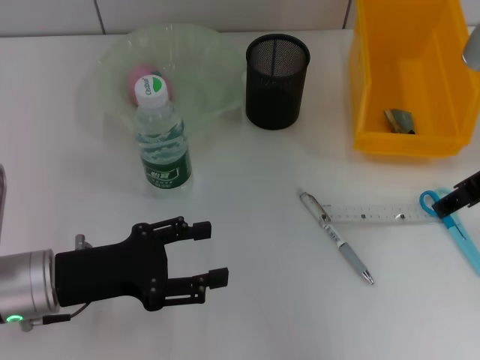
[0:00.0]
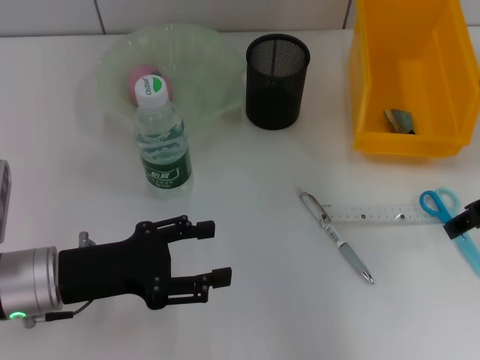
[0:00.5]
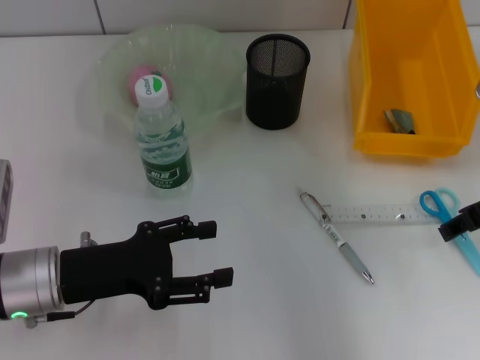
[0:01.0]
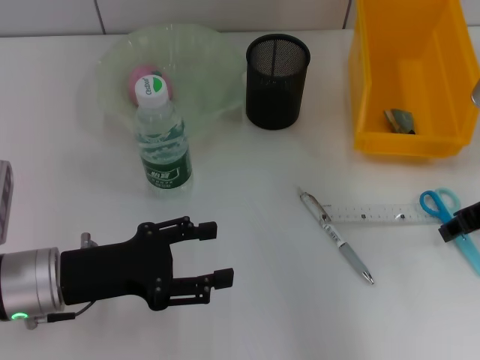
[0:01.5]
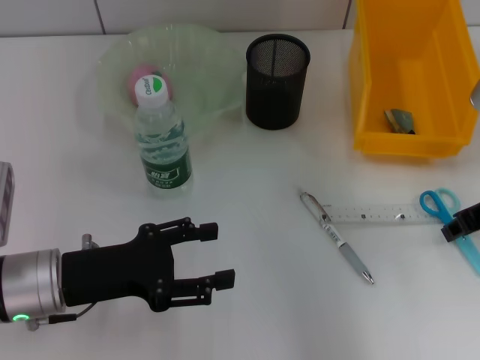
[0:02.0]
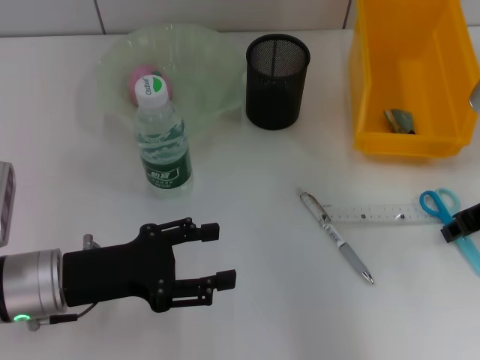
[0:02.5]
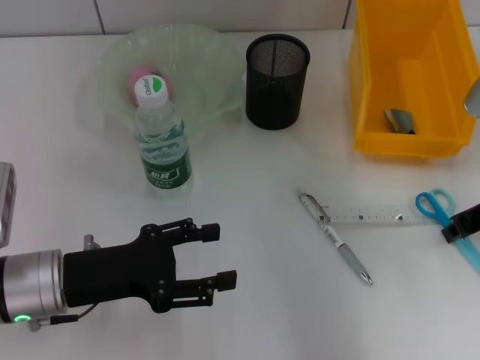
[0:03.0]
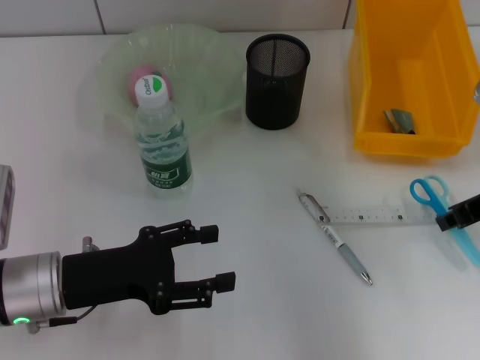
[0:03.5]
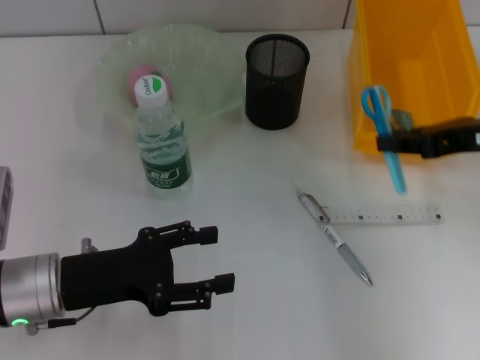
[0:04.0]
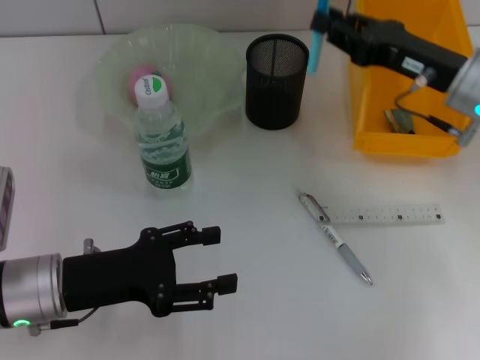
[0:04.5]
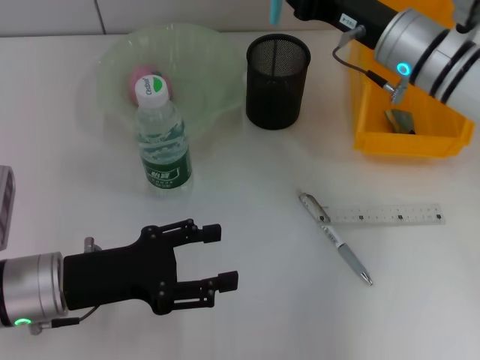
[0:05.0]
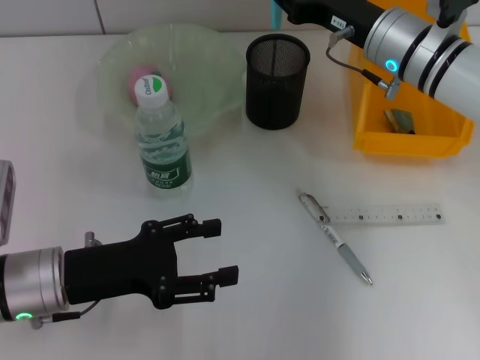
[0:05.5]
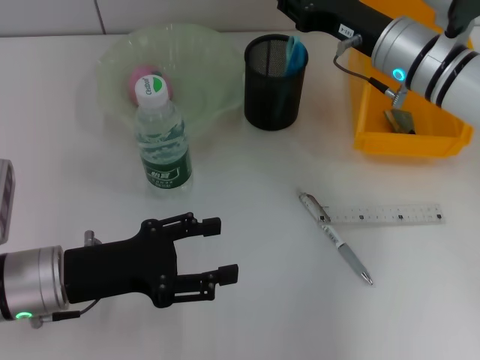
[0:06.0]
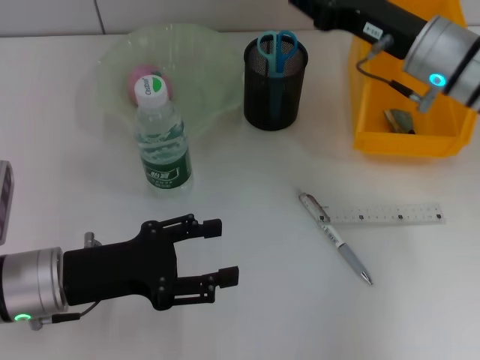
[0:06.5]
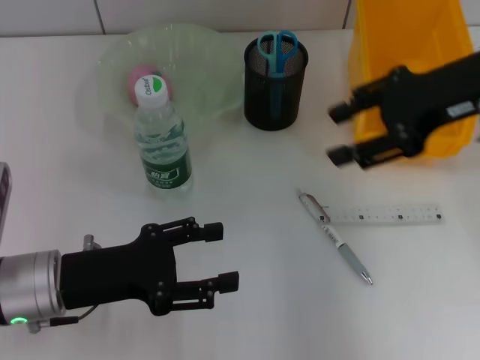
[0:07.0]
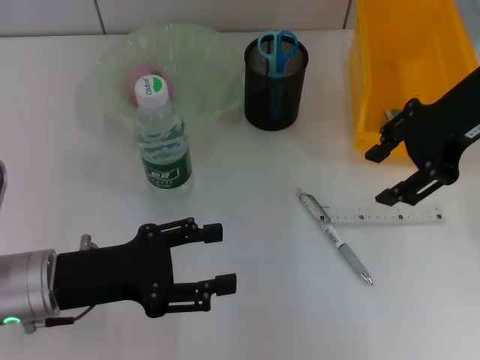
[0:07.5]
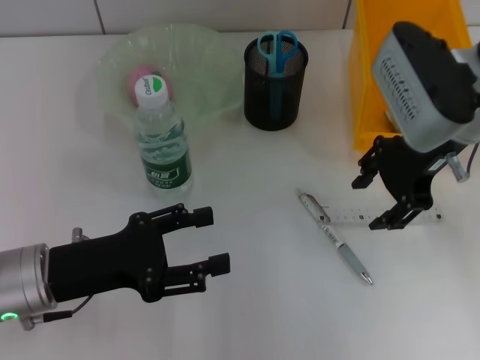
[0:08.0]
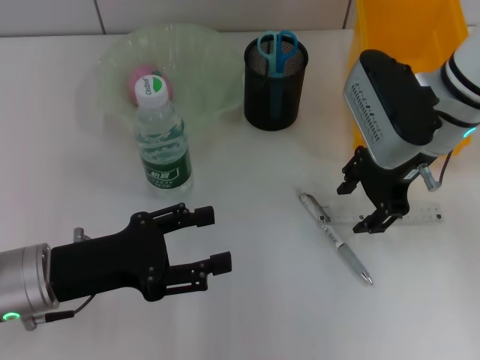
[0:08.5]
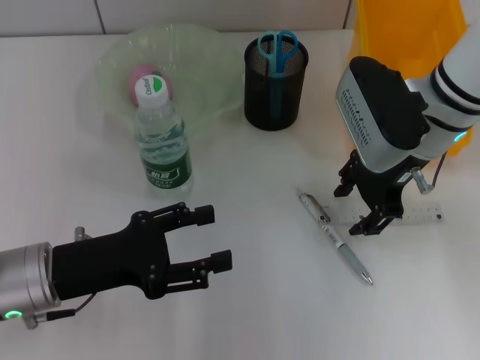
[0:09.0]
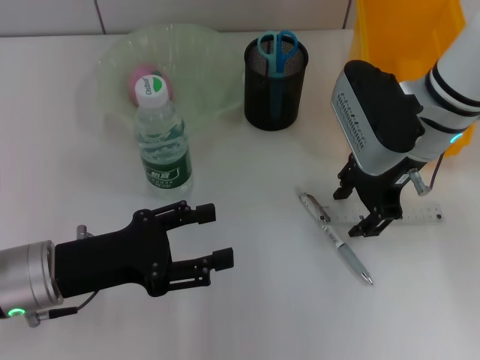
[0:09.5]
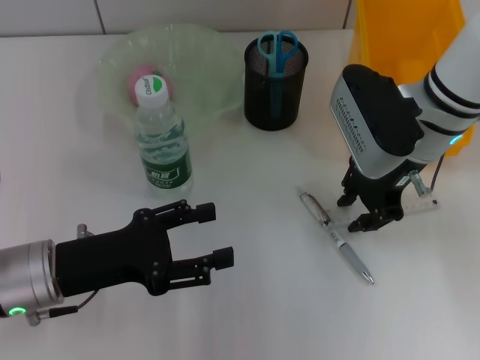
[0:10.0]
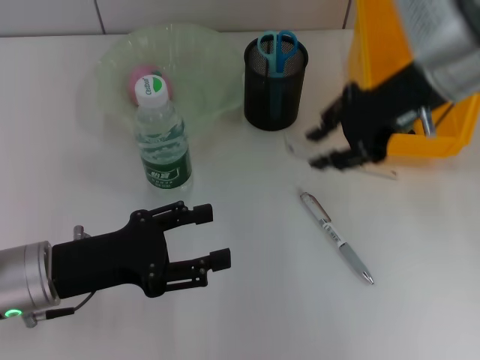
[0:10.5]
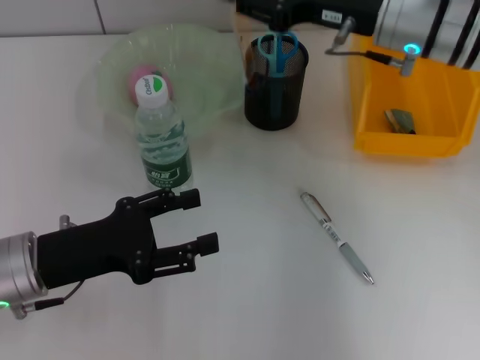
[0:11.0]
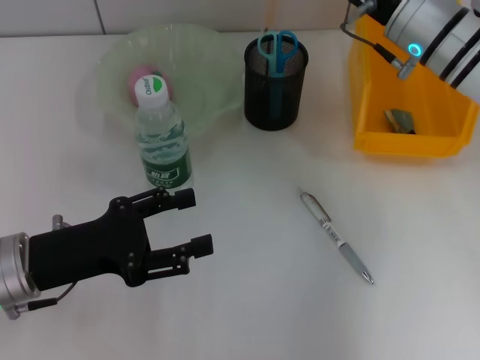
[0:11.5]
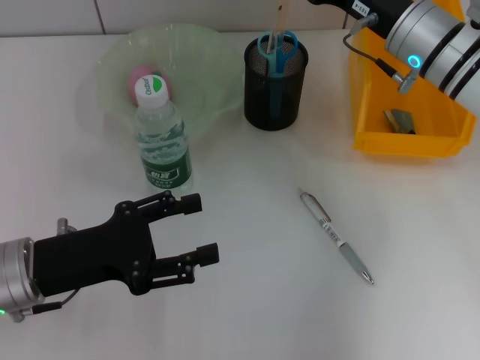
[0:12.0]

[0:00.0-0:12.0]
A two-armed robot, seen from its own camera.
Step, 0:00.0 to 0:03.0: Grab the blue scissors with the right hand.
Step, 0:03.5 to 0:07.0: Place the blue utility knife into the pen holder with the right hand.
Step, 0:07.5 to 0:10.0: Grab the ruler with the right hand.
0:00.0 to 0:02.0: The right gripper moves downward, roughly 5 cm, and closes its fingers.
0:04.0 to 0:06.0: The right gripper goes roughly 15 cm forward, to the left and downward.
0:06.0 to 0:08.0: The right gripper is displaced upward by approximately 5 cm, and opens its fingers.
0:08.0 to 0:10.0: The grippers stay close to where they were, moving slightly.

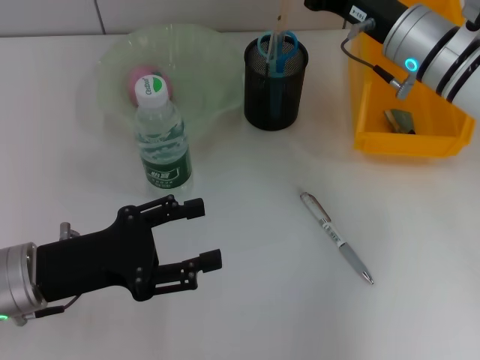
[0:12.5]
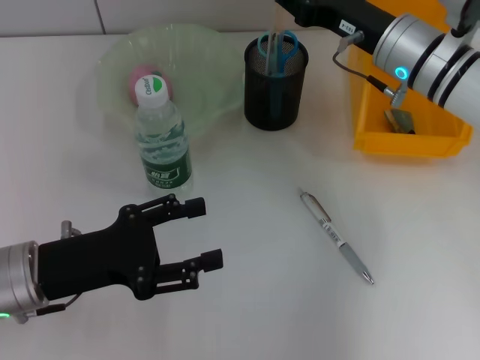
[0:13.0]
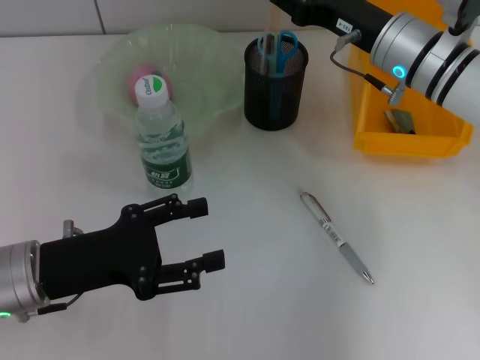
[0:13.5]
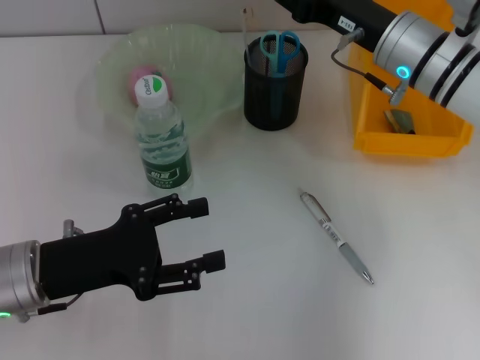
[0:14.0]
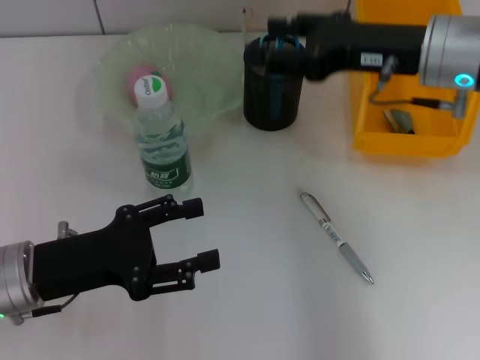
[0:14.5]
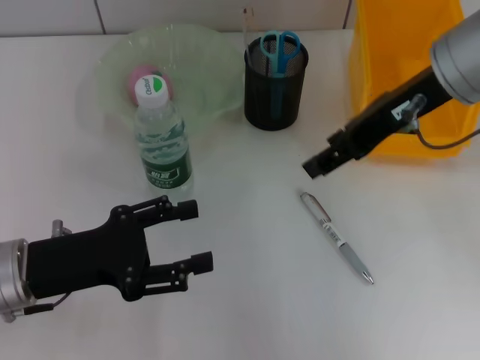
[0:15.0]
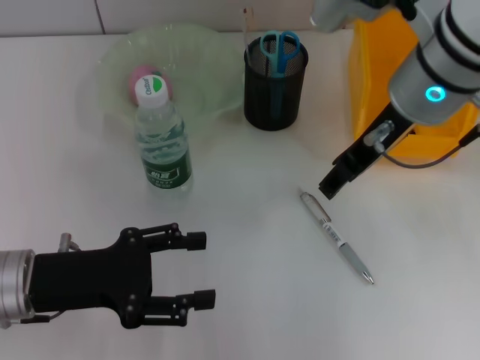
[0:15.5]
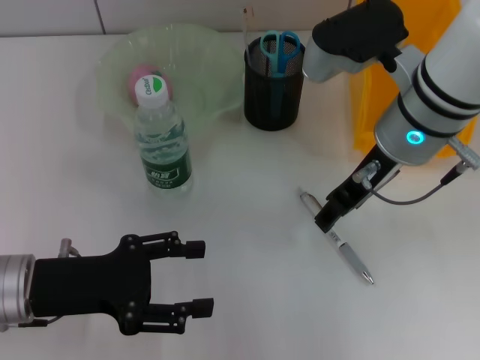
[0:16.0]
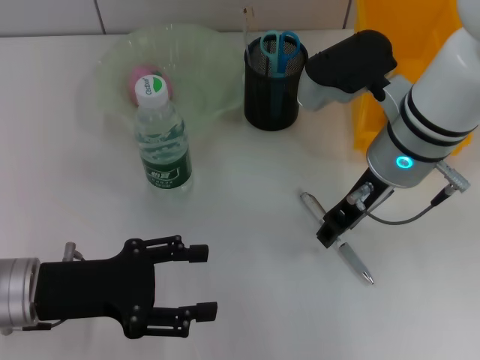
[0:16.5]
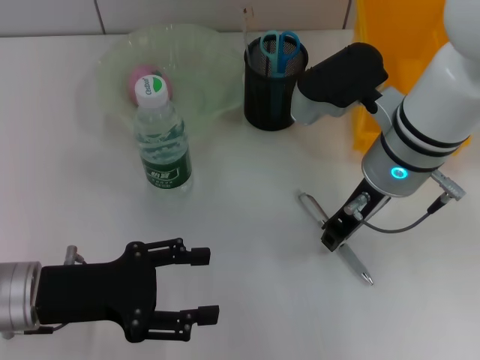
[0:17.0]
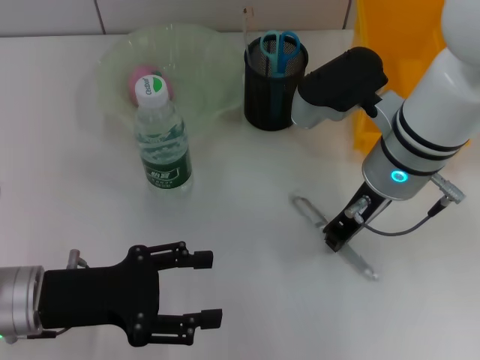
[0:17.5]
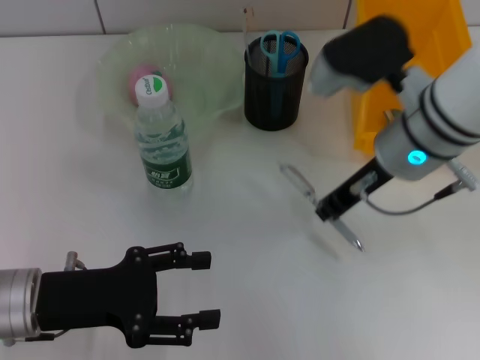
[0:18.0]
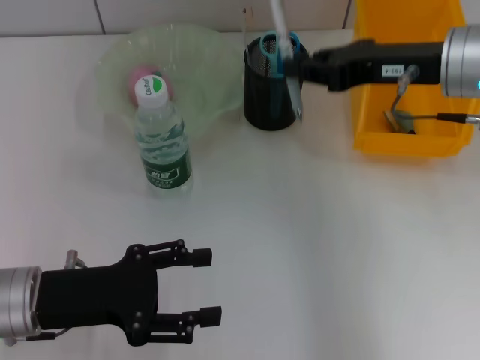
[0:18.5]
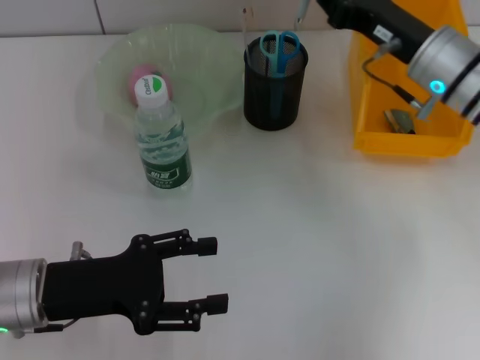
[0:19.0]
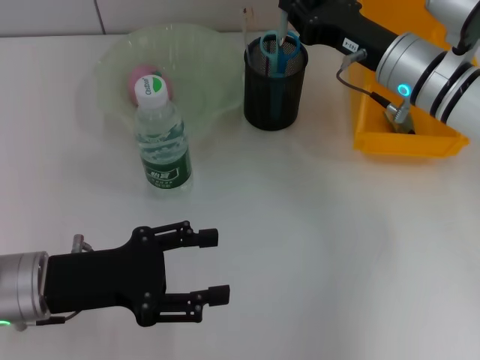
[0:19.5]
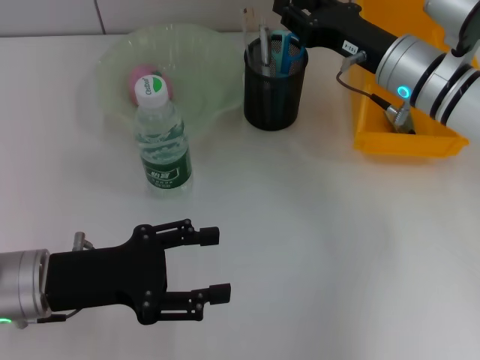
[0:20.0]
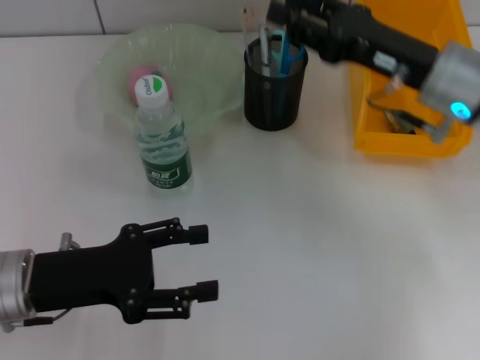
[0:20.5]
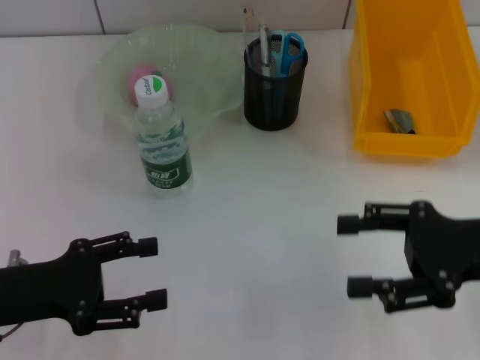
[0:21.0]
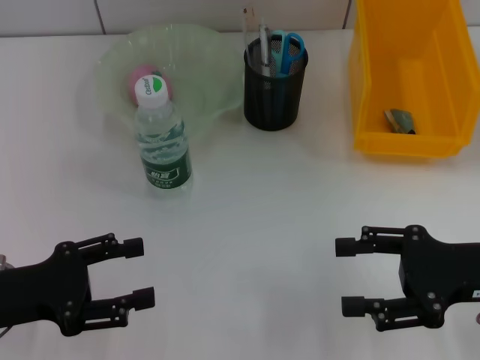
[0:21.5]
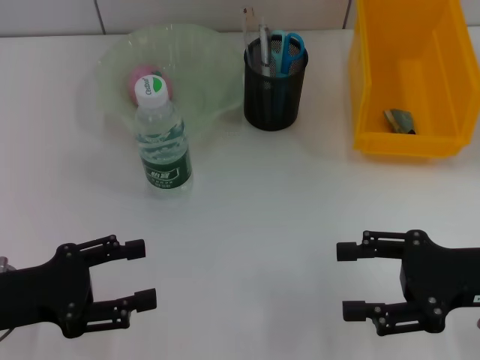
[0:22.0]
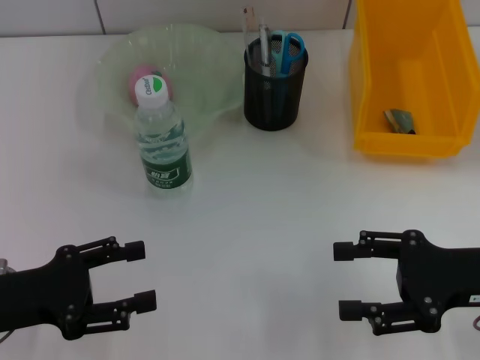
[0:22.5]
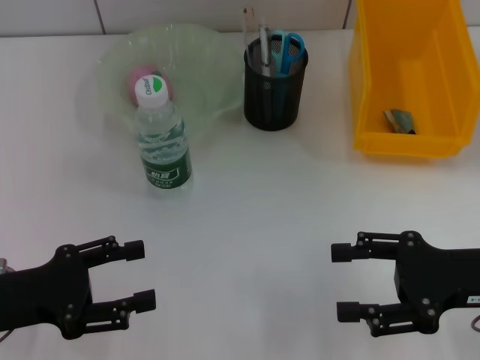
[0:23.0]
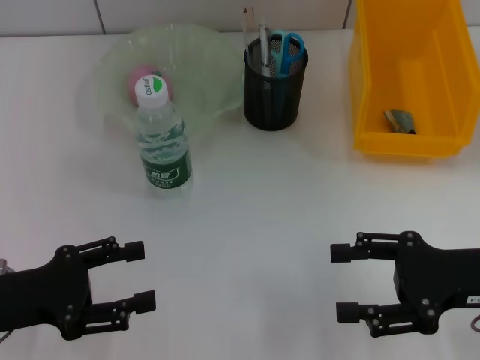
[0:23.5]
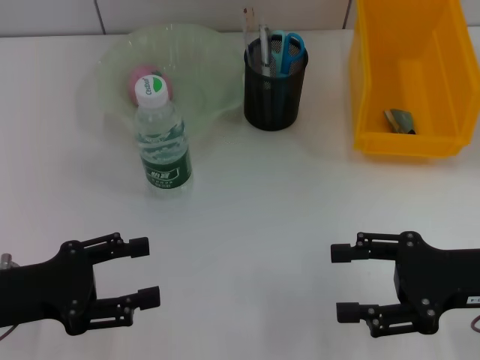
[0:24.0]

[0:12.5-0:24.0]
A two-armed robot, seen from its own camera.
Step, 0:12.5 to 0:14.5: Place the ruler into the pen holder with the right hand.
Step, 0:15.0 to 0:17.5: Grab the gray spring-action pen with the right hand.
Step, 0:18.0 to 0:20.0: Place the gray spring-action pen into the pen holder with the right hand.
0:12.5 to 0:14.5: The right gripper shifts some 5 cm upward.
0:14.5 to 0:16.5: The right gripper moves to the left, some 5 cm.
0:16.5 to 0:18.5: The right gripper travels to the right by roughly 10 cm, and closes its fingers.
0:18.5 to 0:20.0: The right gripper shifts some 10 cm downward.
0:20.0 to 0:22.0: The left gripper goes approximately 5 cm to the left; the right gripper travels backward and to the right by roughly 20 cm, and opens up.
0:22.0 to 0:24.0: The two grippers keep their place.
